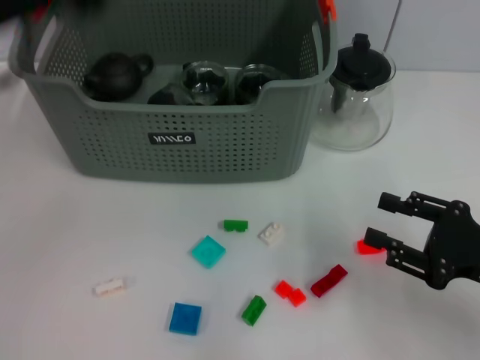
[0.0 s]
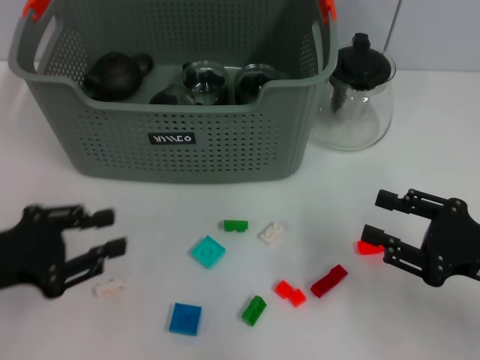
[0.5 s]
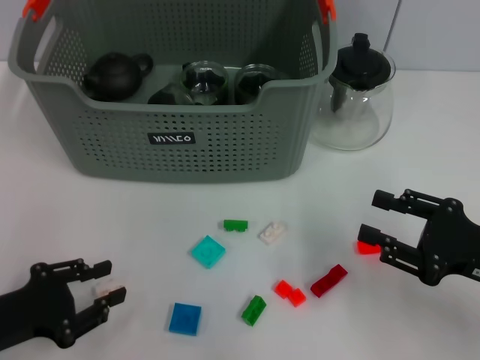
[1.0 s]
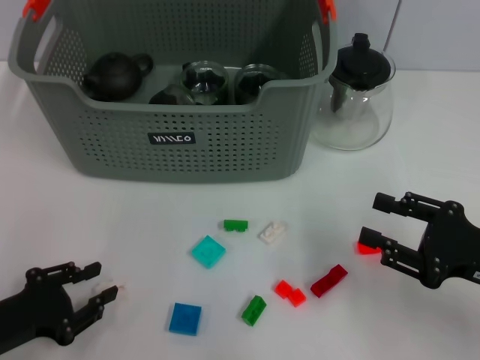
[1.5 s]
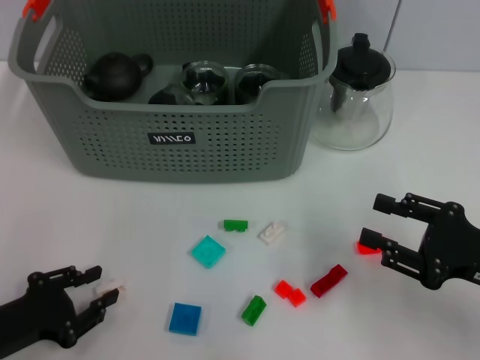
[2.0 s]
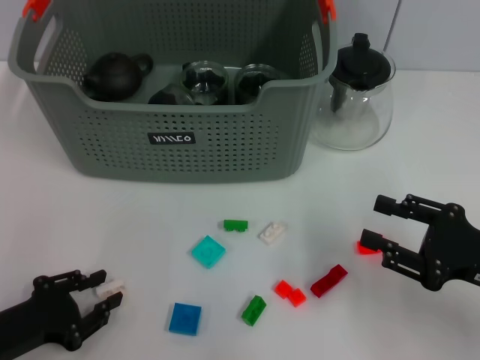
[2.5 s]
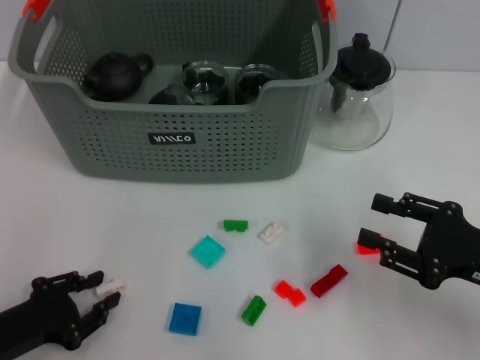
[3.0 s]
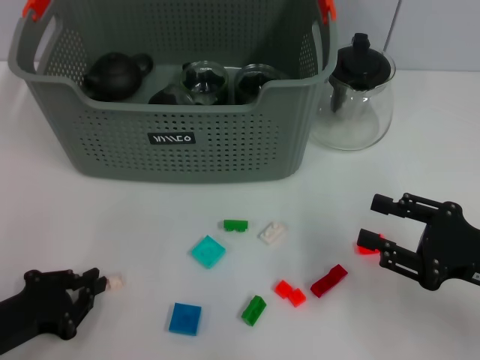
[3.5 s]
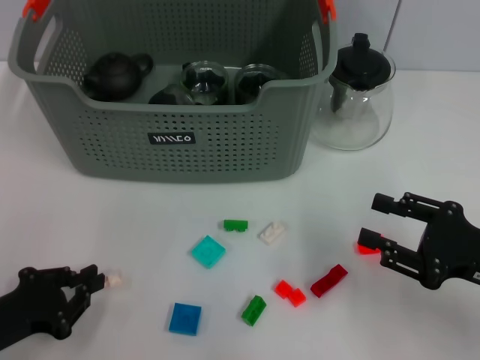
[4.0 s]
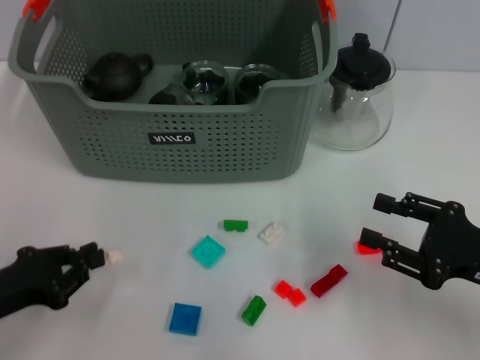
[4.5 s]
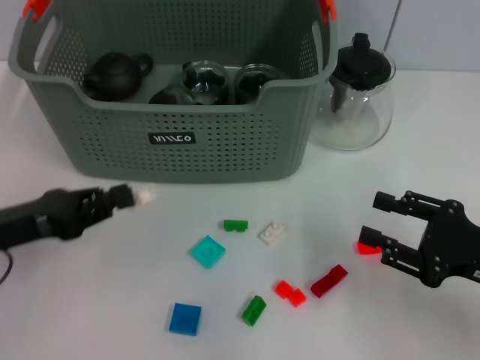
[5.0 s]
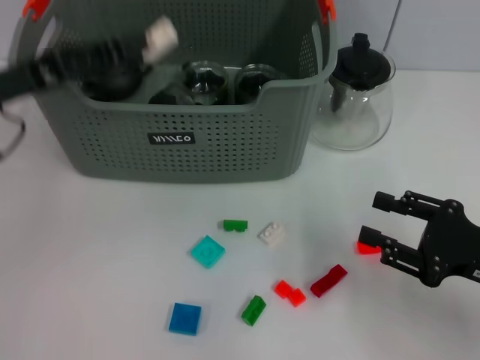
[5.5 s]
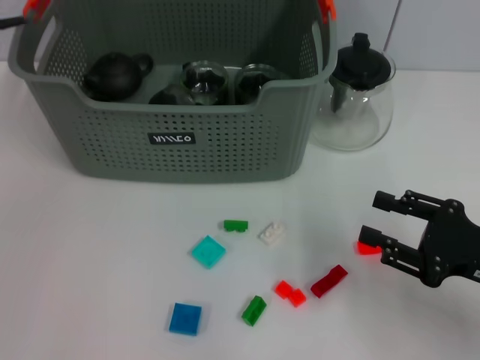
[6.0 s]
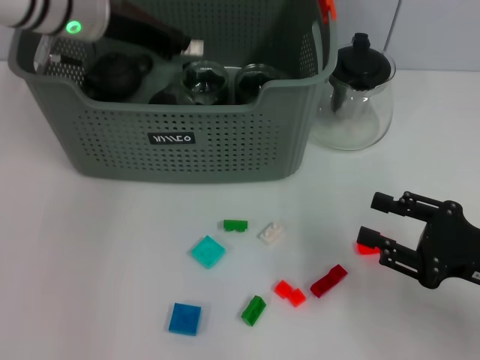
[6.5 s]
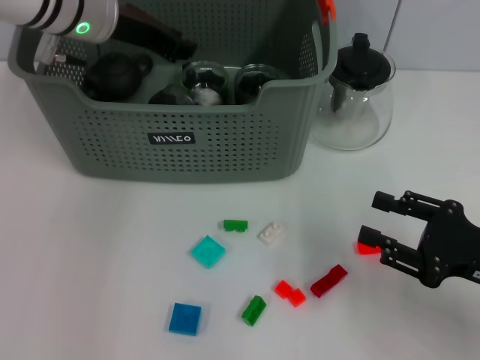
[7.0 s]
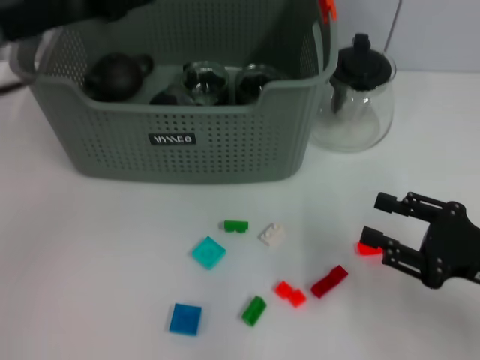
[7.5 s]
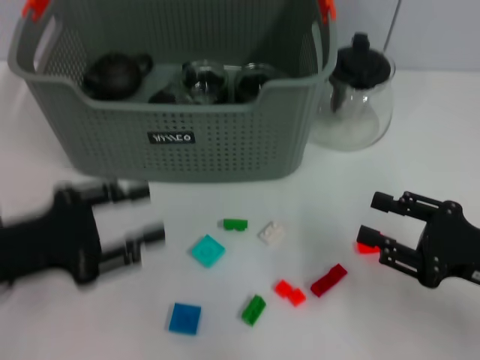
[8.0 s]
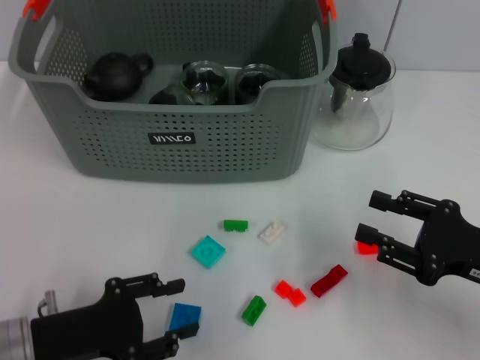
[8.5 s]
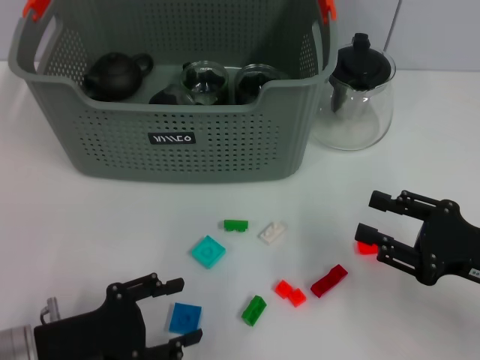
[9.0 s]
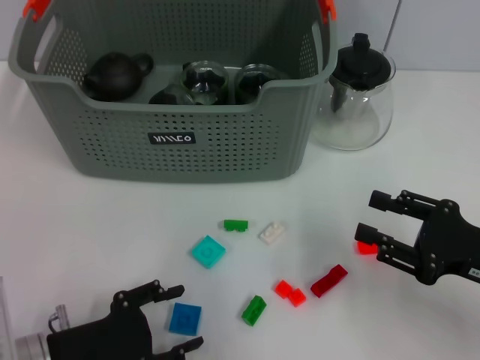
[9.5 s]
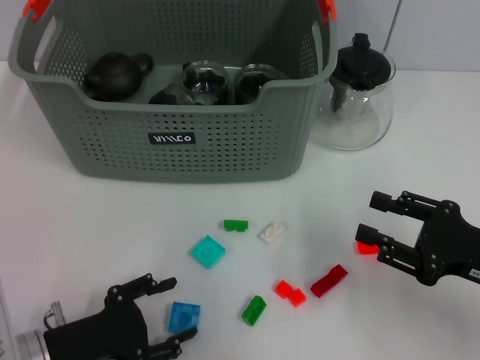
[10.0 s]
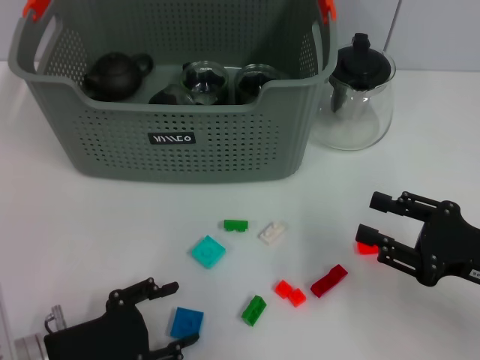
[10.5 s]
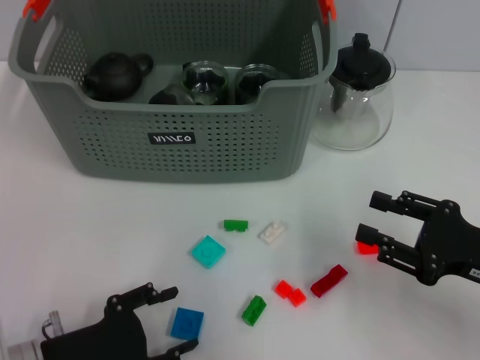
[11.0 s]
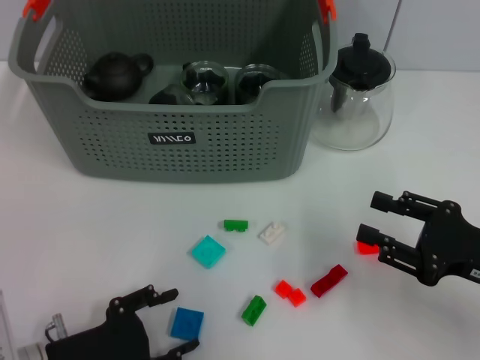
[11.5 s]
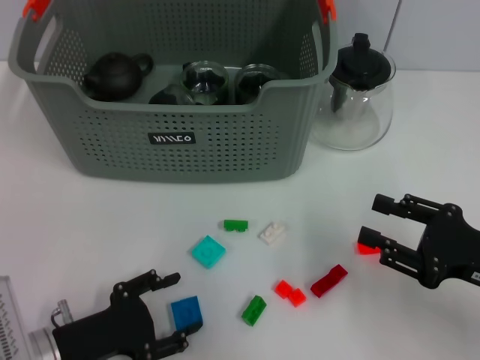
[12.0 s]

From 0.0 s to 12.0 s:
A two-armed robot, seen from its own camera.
Task of the whole recording: pick up the teacup on the table and place it into the storage bin, pick up the block on the table and place it into the storage bin.
Step, from 0.0 s to 3.5 s: Grasp the white block with left gripper.
Step, from 4.0 s to 7.0 s: Place the white block in the storage box with left gripper.
From 0.0 s to 2.0 s: The left gripper heads downward and backward, covering roughly 25 cm.
From 2.0 s to 4.0 s: The left gripper closes.
From 4.0 s to 6.0 s: The left gripper heads forward and upward, covering about 35 cm.
From 6.0 s to 8.0 s: The left gripper moves backward and downward, about 25 cm, and opens up.
From 8.0 s to 10.0 s: The left gripper heads downward, covering some 10 cm.
From 10.0 s to 12.0 s: Both grippers stay put.

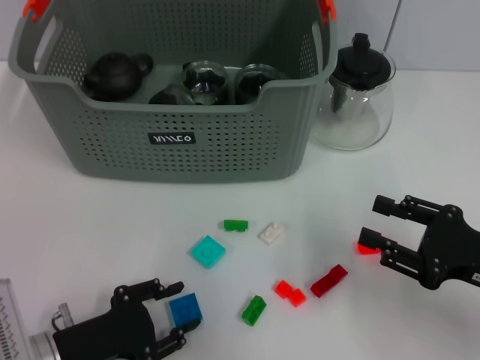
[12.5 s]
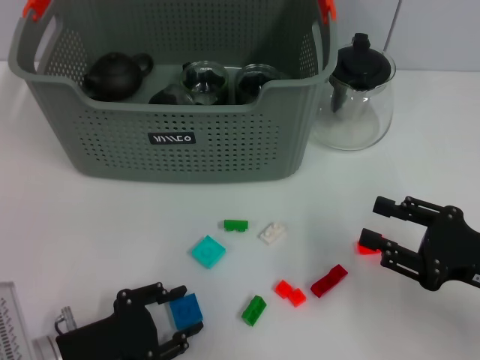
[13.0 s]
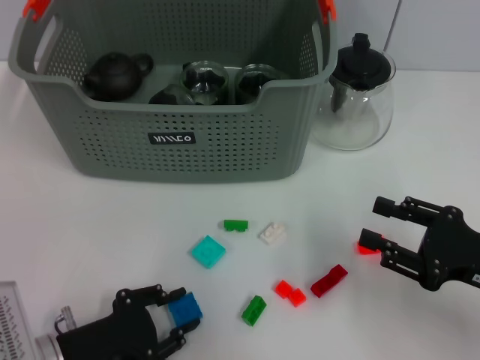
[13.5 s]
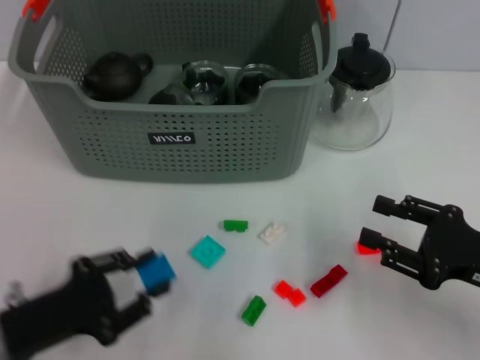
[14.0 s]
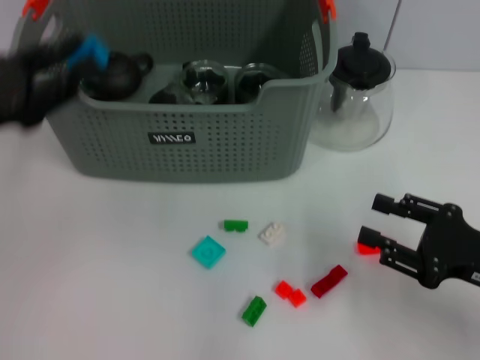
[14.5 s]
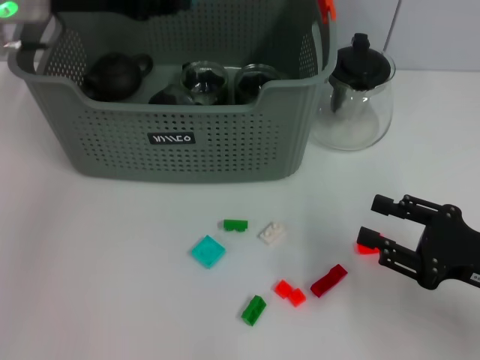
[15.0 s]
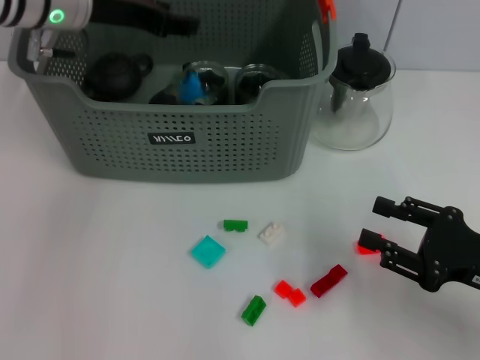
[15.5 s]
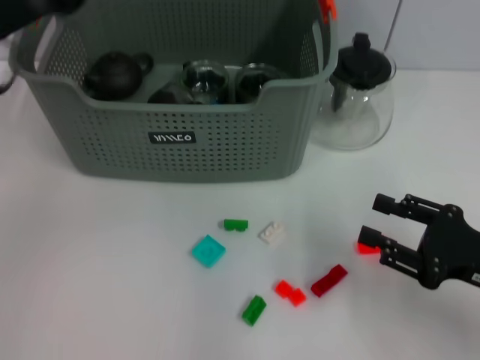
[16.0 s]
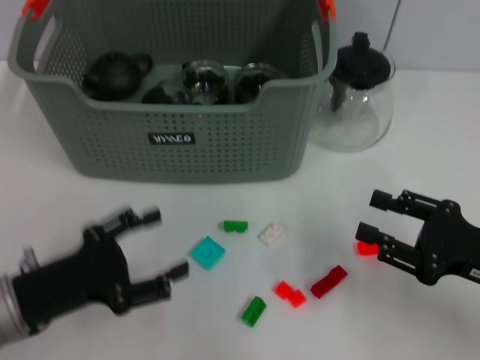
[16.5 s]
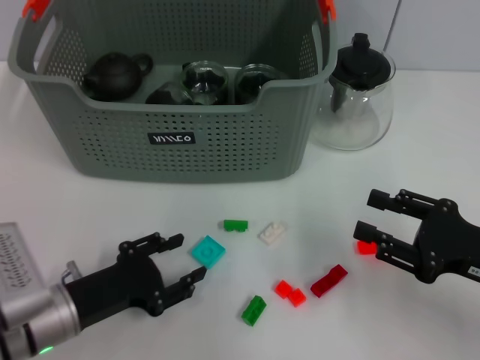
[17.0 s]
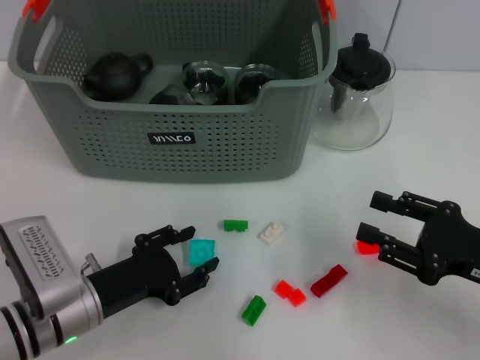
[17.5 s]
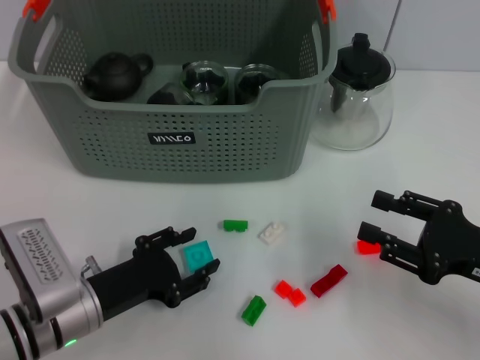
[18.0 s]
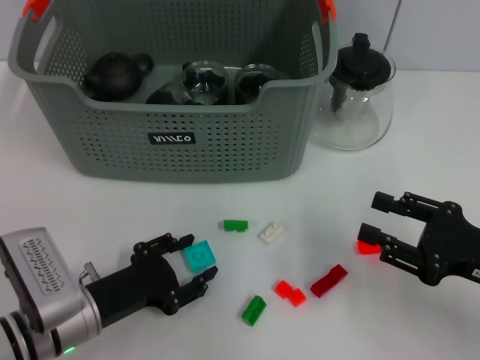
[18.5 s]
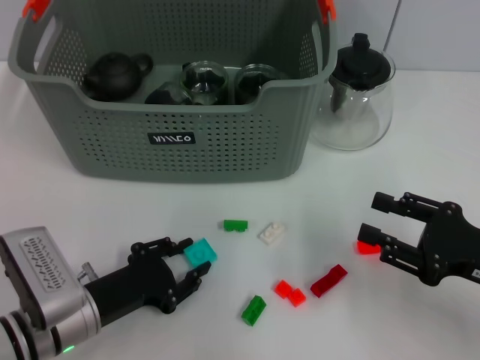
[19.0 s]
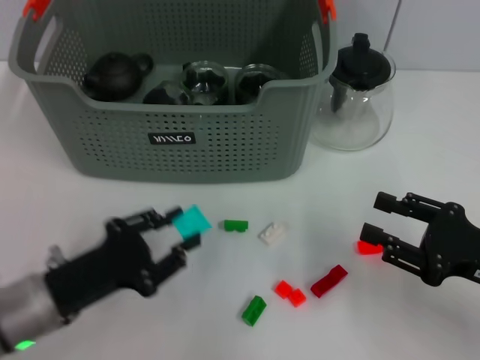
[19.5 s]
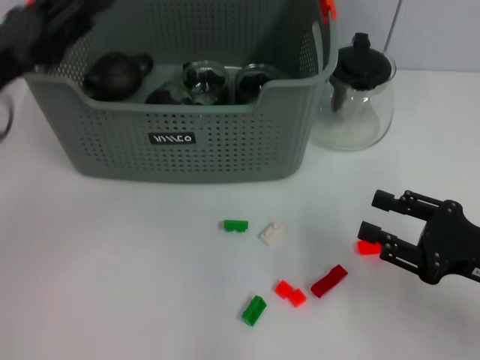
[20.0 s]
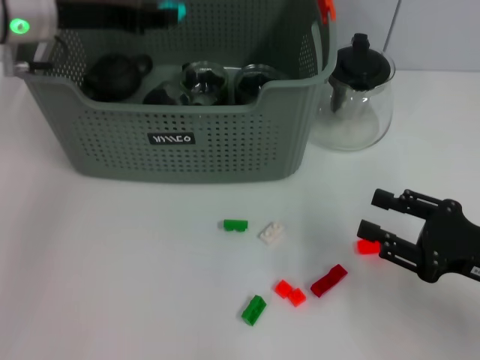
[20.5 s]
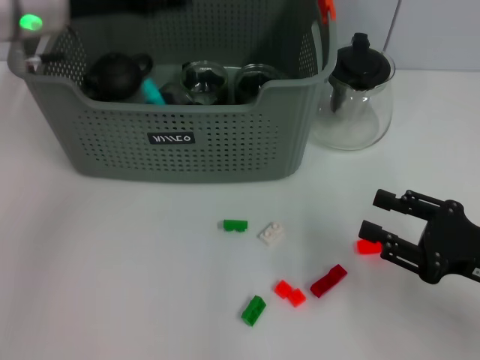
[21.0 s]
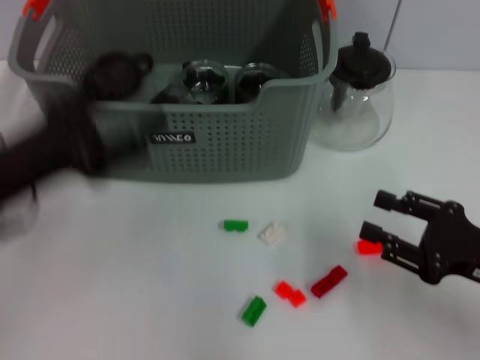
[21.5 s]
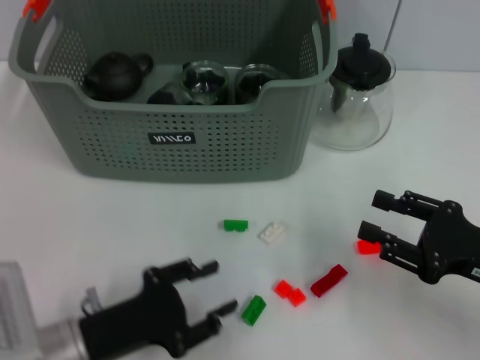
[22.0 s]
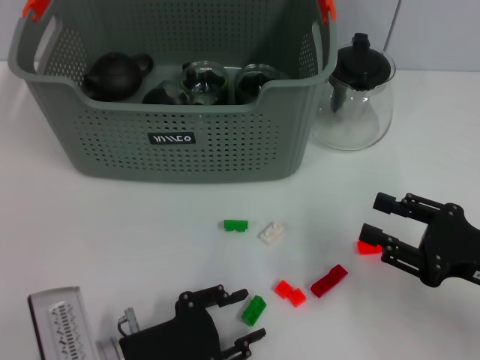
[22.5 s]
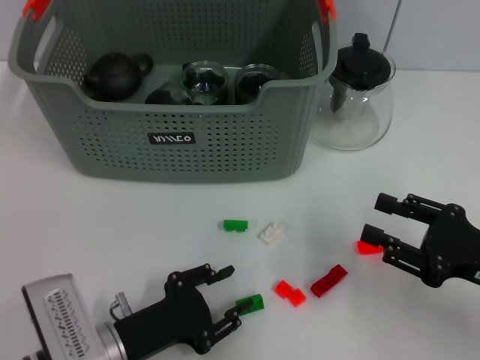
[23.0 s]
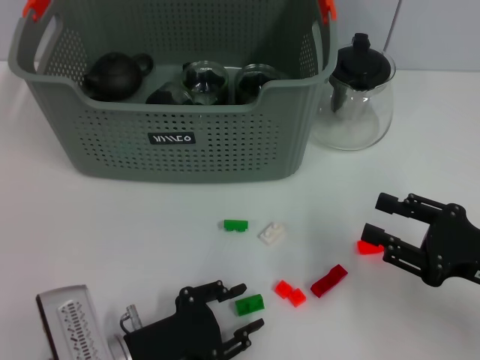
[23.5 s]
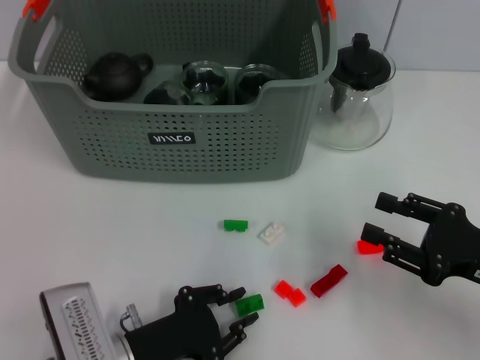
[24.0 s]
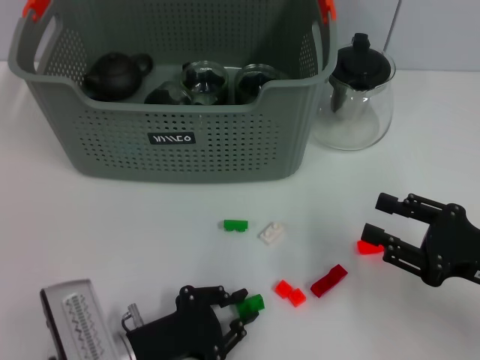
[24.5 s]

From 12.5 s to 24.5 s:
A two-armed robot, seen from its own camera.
Task of the whole recording: pick up the teacup on the table and place it into the storage bin, pick up the block on the table and place it into the storage bin.
Step, from 14.0 s to 16.0 s: Place the dark blue block in the storage box with left gripper.
Step, from 16.5 s to 18.5 s: Grasp the light blue block with left gripper.
Step, from 19.5 s to 21.0 s: Place the light blue block in the storage box with left gripper.
Step, from 21.5 s to 24.5 s: Grasp the green block with left gripper.
From 12.5 s to 14.5 s: The left gripper moves upward, forward and to the left, about 20 cm.
From 14.5 s to 16.5 s: The left gripper travels downward and to the right by some 10 cm, goes forward and returns, about 15 cm each way, and opens its fingers.
From 16.5 s to 18.5 s: The left gripper moves downward, about 5 cm.
From 18.5 s to 20.5 s: The left gripper shifts about 30 cm upward and forward.
From 20.5 s to 22.5 s: The left gripper is displaced backward and downward by some 35 cm.
From 22.5 s to 24.5 s: The grippers stay close to where they were, moving slightly.

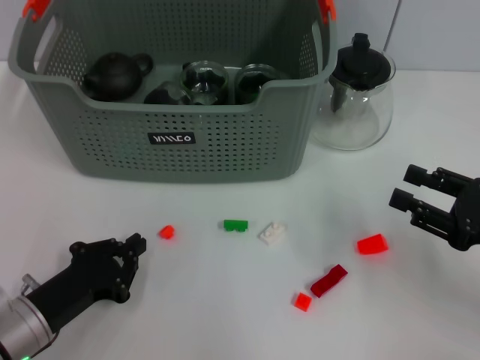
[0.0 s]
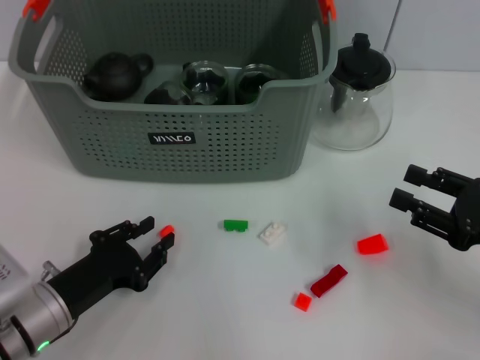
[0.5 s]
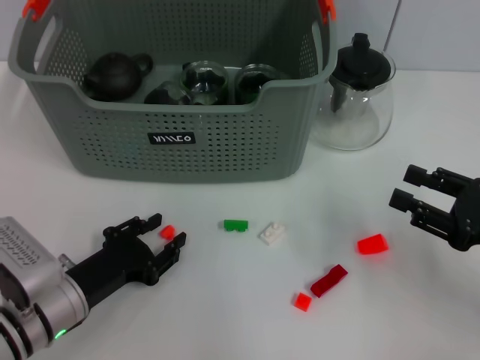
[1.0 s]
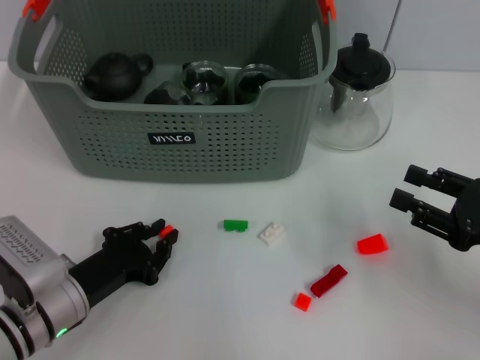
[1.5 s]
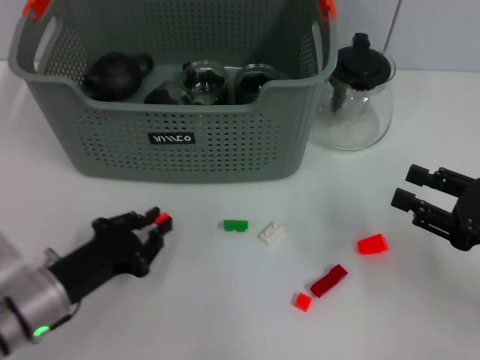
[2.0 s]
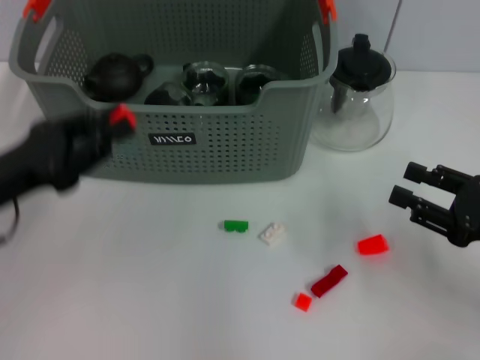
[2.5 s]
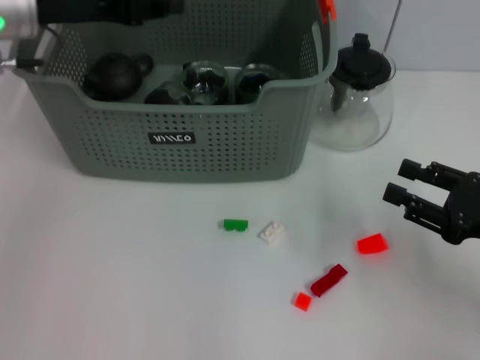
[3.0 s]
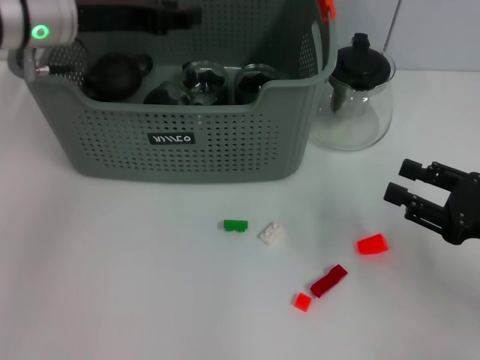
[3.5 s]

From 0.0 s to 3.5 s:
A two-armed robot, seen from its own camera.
Task of the whole recording: pick up the teacup on the table and place it into the storage bin, pick up the block on the table and place it into the storage bin.
Step, from 0.0 s to 1.5 s: Grasp the orange block with left gripper.
From 0.0 s to 2.0 s: The left gripper opens and closes again.
From 2.0 s to 3.5 s: The left gripper shifts approximately 30 cm upward and forward.
